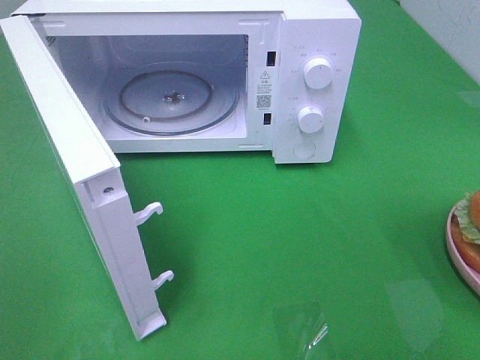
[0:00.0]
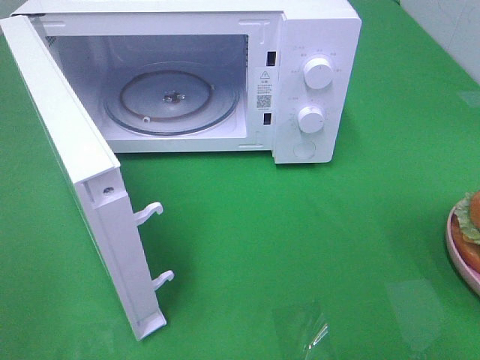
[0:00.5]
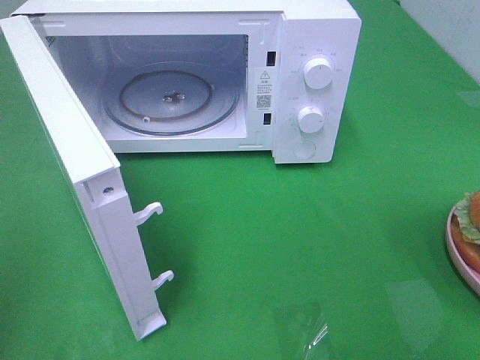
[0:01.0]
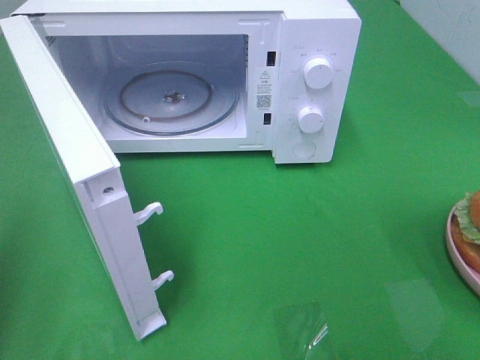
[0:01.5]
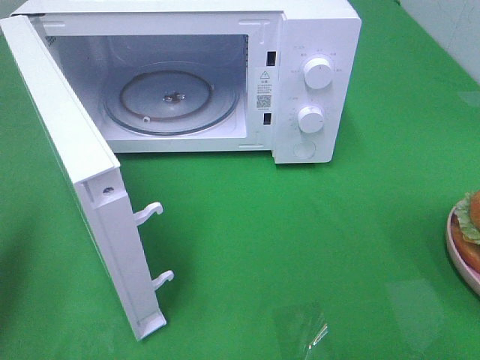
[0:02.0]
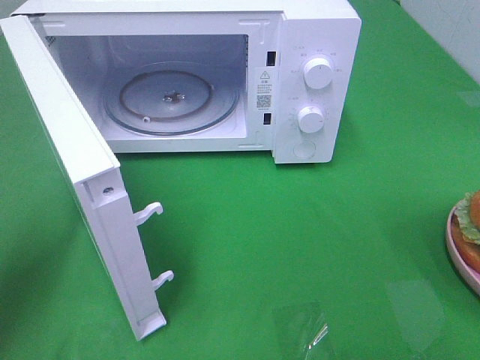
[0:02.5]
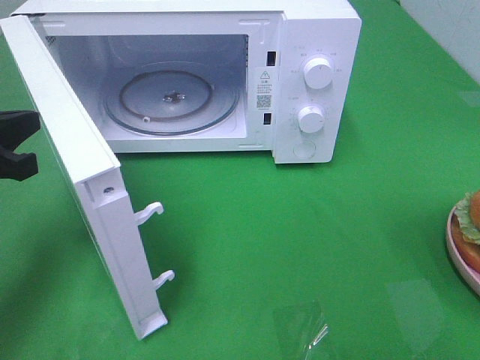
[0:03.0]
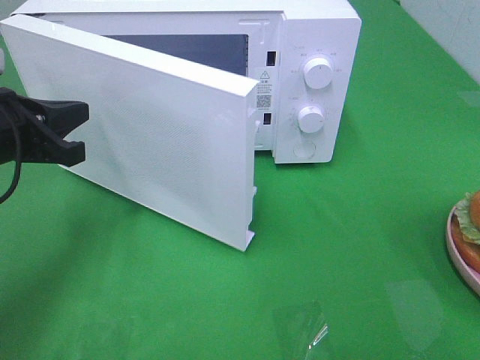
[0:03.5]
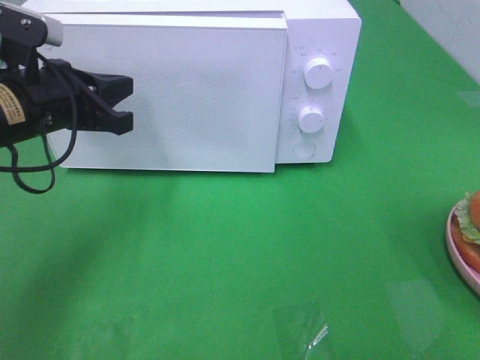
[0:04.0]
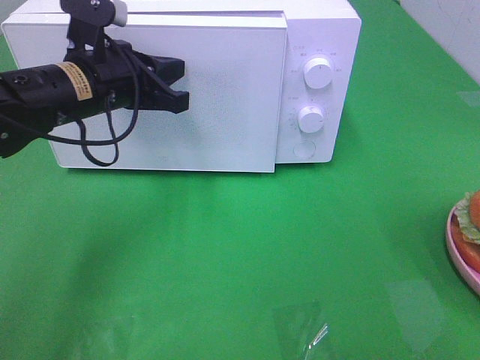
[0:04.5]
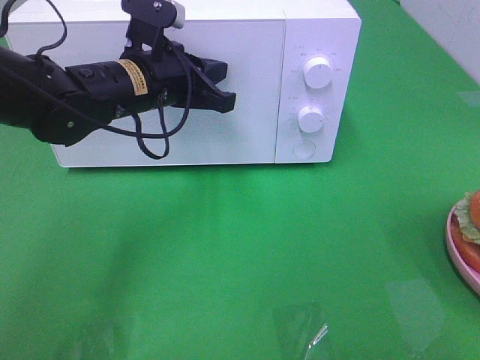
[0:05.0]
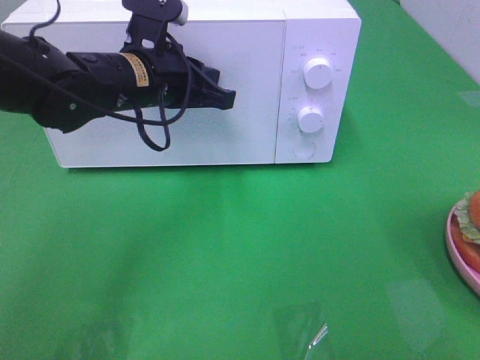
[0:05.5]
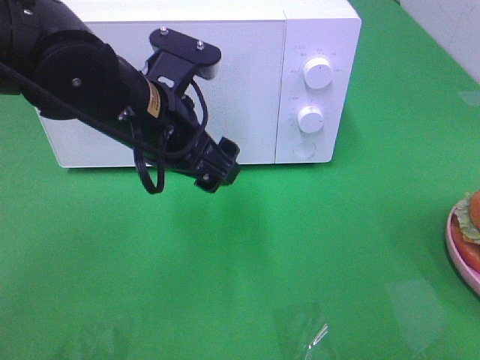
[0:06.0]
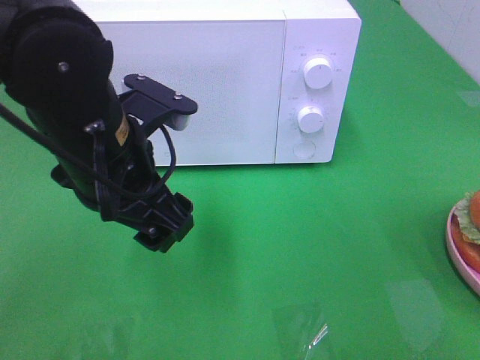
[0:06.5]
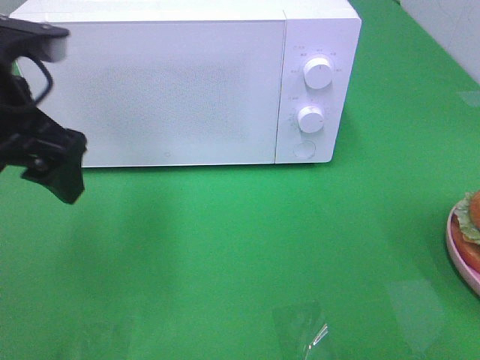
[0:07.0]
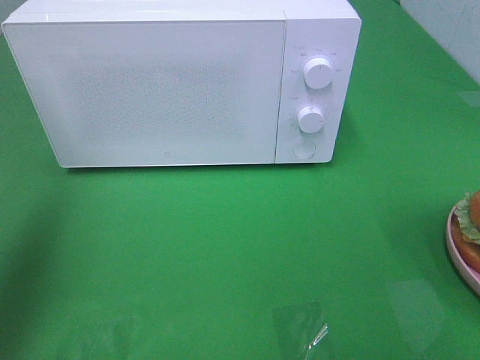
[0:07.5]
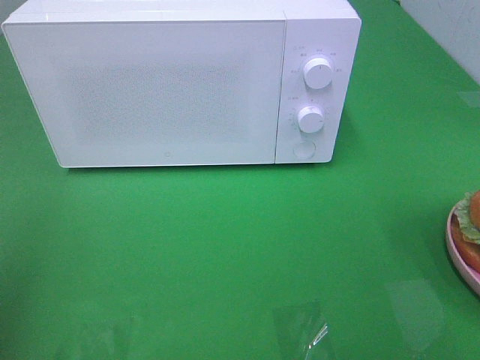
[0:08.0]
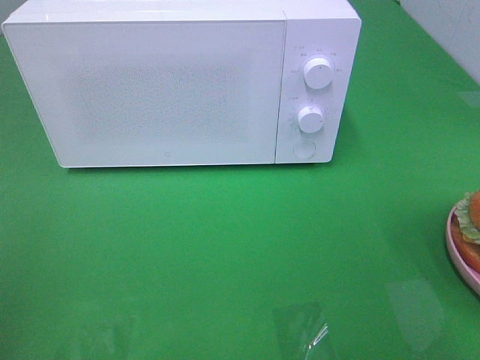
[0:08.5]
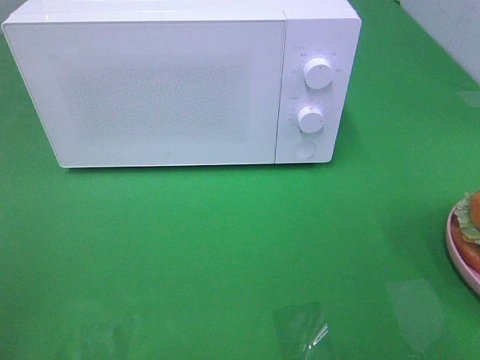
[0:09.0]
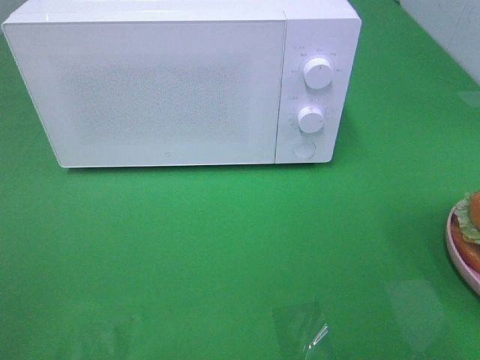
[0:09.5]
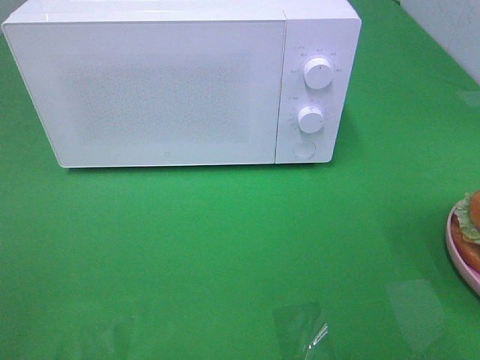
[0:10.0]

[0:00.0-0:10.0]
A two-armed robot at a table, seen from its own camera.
Task of the whole recording: Heat the burger.
Step, 0:00.0 to 0:05.5: Left hand: close the microwave door.
0:00.0 to 0:02.0: The left gripper is displaced forward by roughly 15 cm, and closes its fingers.
0:02.0 to 0:04.0: The left gripper travels forward and to the right by some 20 cm.
0:04.0 to 0:06.0: The left gripper moves to the right, about 10 cm, and opens its fingers.
0:06.0 to 0:08.0: The left gripper is displaced to the left, backward and upward by about 30 cm.

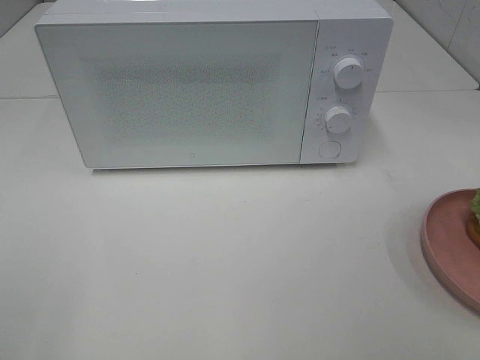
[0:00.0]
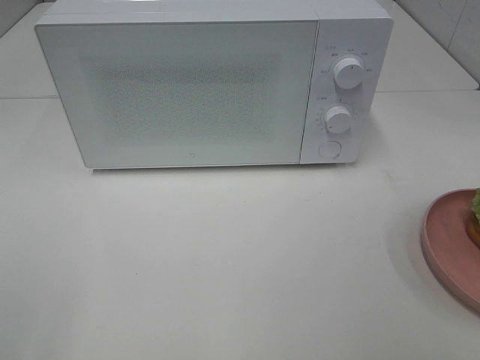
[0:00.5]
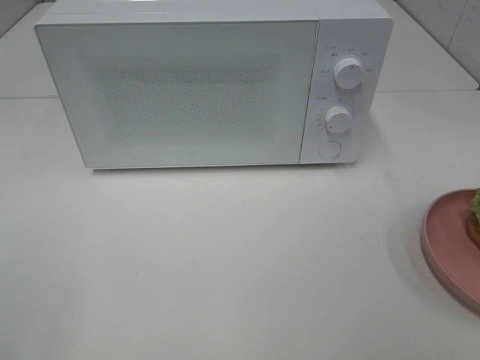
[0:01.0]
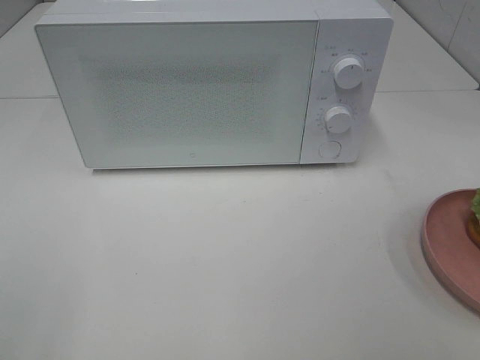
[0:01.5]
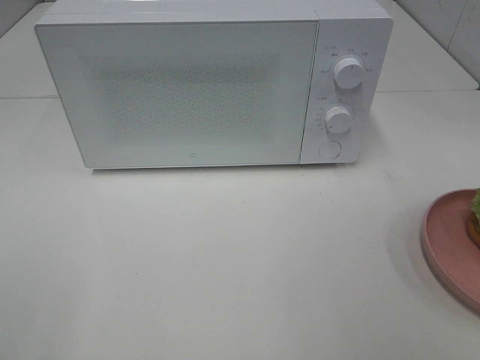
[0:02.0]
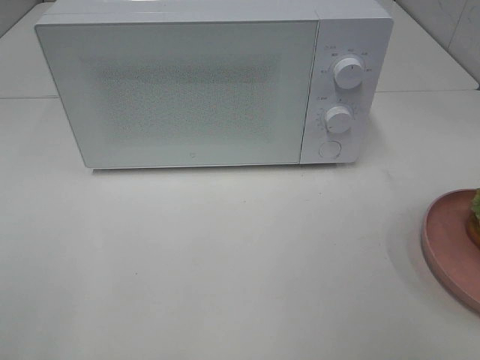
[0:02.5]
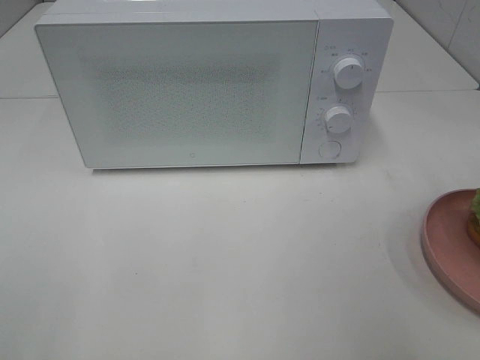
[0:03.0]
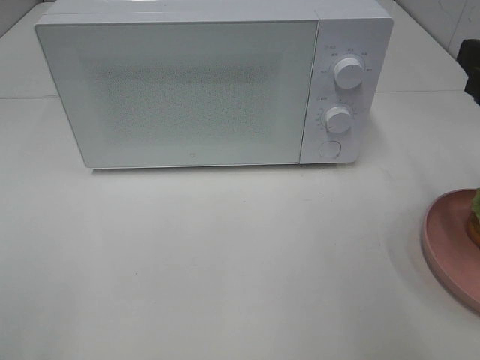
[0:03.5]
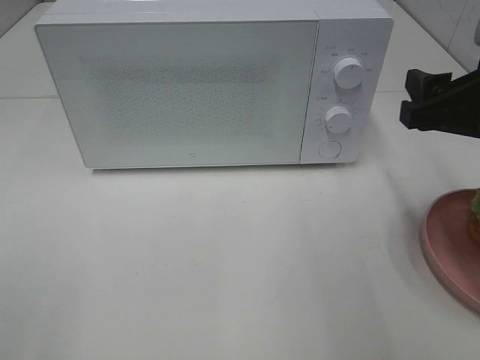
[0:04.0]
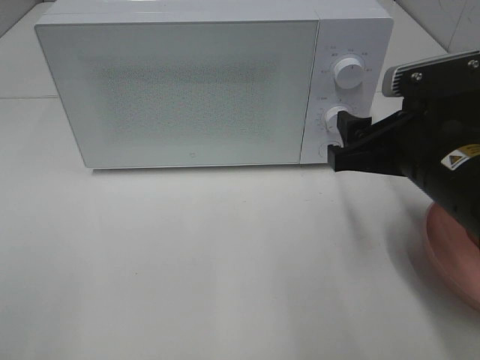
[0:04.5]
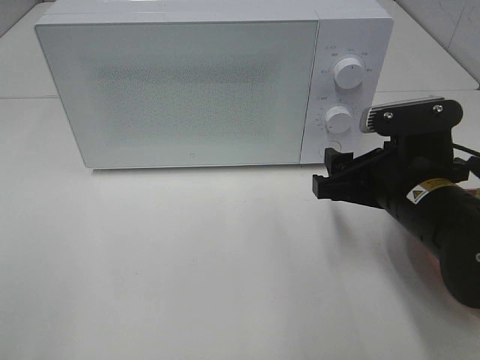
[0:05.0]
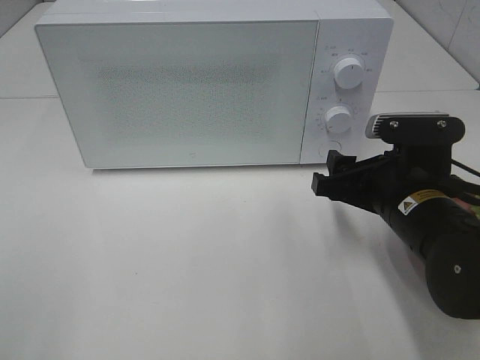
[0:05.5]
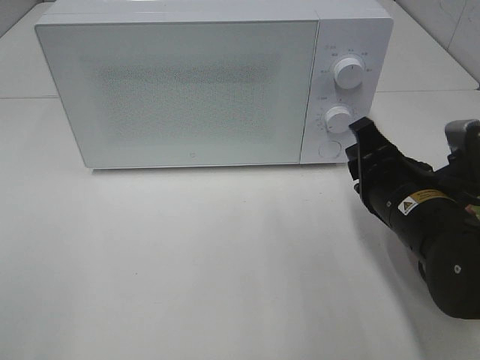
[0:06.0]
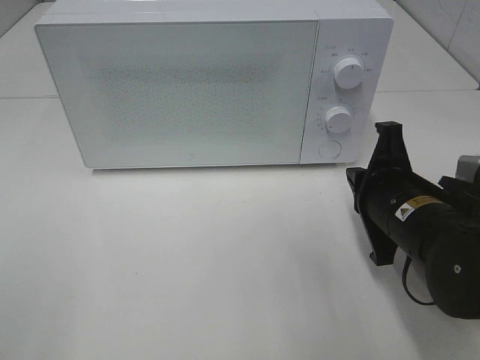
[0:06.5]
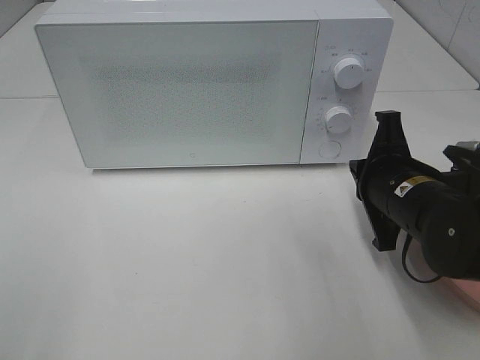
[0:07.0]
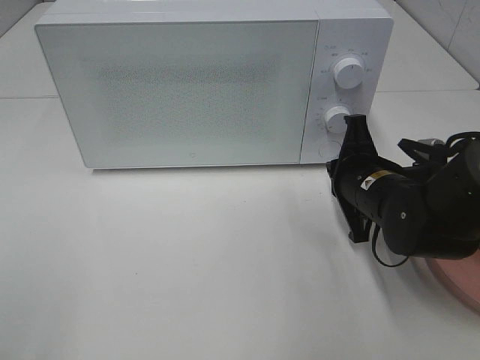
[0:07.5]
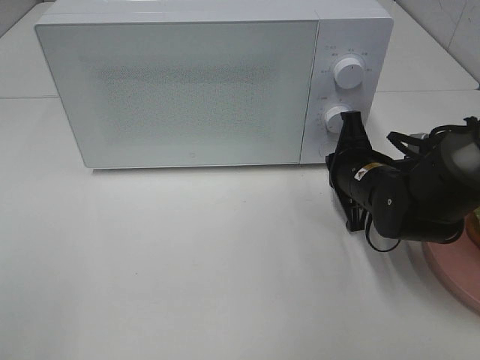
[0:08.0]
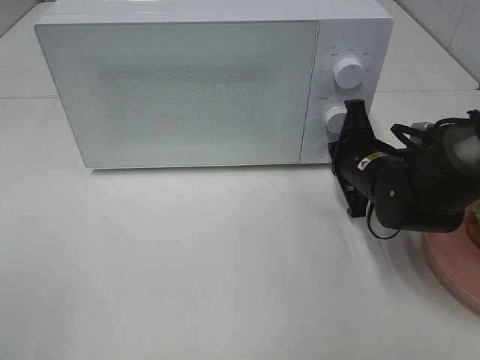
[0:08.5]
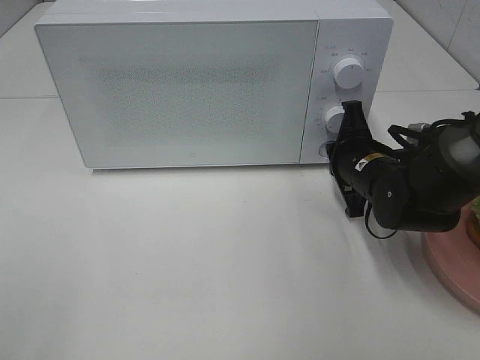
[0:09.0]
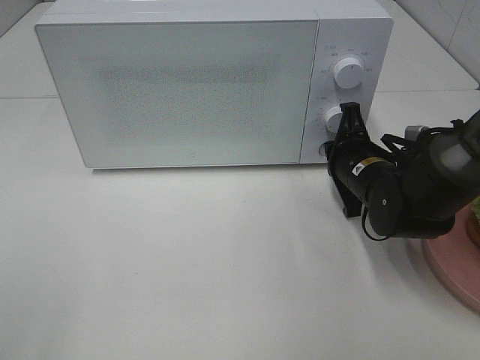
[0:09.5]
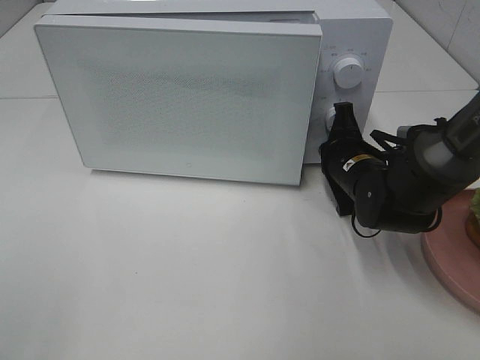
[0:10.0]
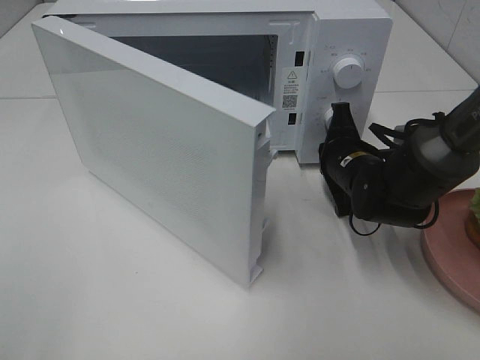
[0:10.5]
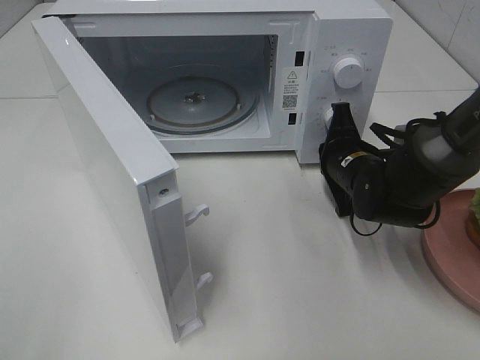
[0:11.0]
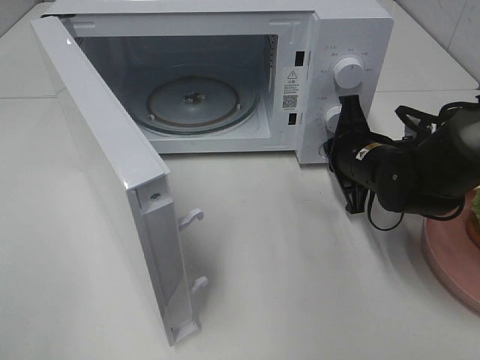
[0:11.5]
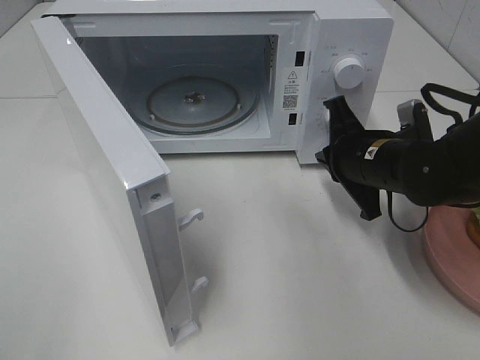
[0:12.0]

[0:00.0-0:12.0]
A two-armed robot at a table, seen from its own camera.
Task of the whole recording: Heat the burger.
Step, 0:00.0 to 0:11.5: Right hand: press the switch.
0:02.0 to 0:04.0: The right gripper heads forward, covering roughly 20 cm.
0:04.0 to 0:06.0: The right gripper moves downward and to the left, about 10 cm, and closes.
0:06.0 to 0:08.0: The right gripper goes about 10 cm forward.
0:08.0 to 0:10.0: The grippers make only small movements.
0:10.0 to 0:12.0: The right gripper ends up approximately 5 cm from where it was.

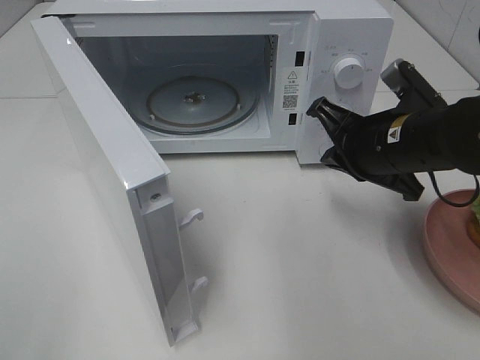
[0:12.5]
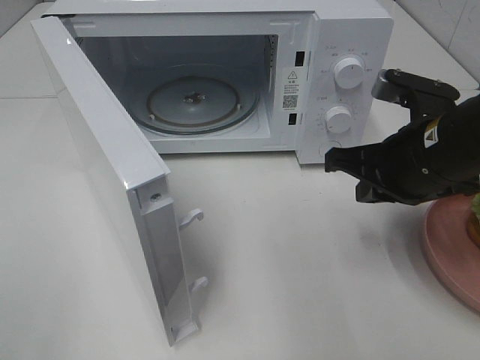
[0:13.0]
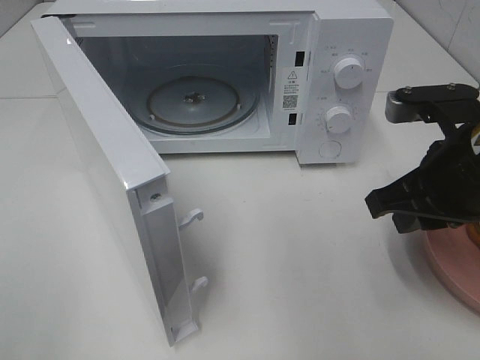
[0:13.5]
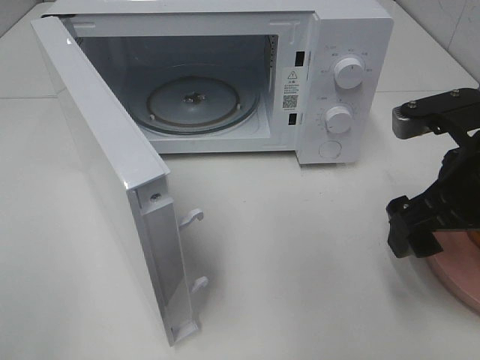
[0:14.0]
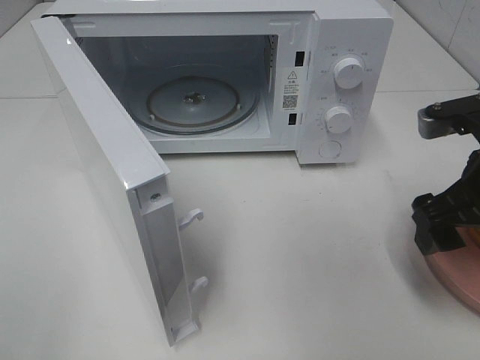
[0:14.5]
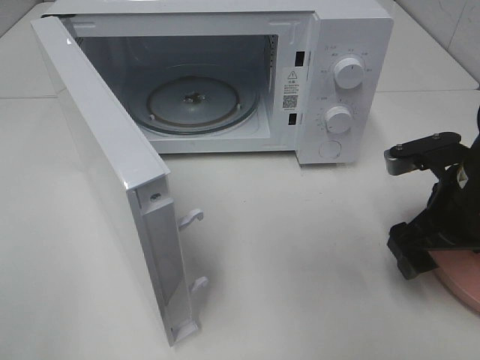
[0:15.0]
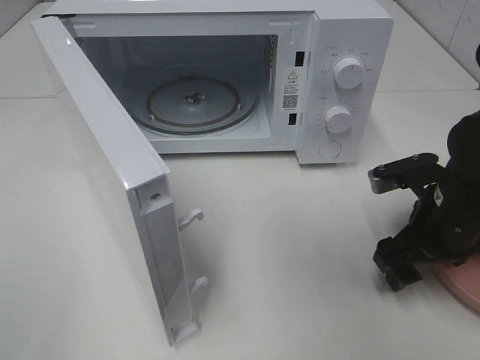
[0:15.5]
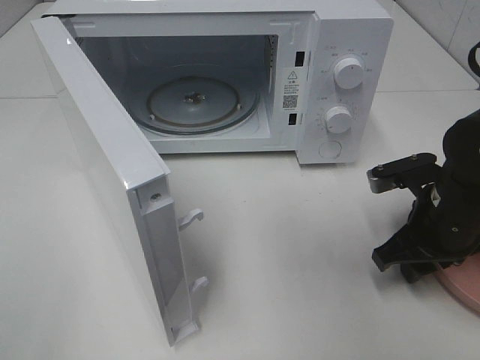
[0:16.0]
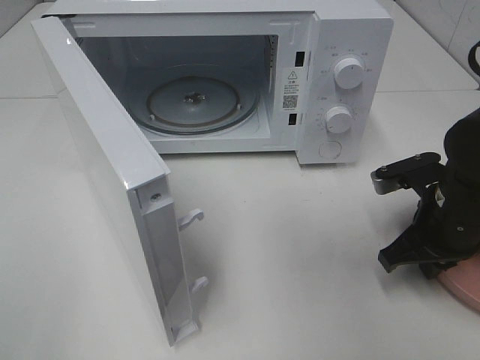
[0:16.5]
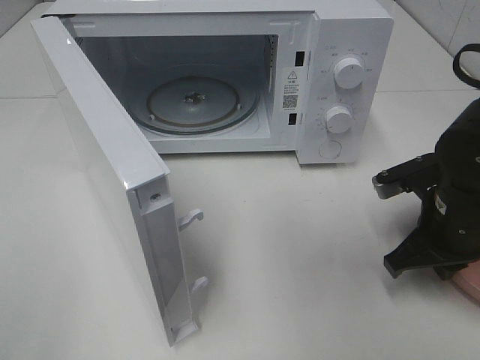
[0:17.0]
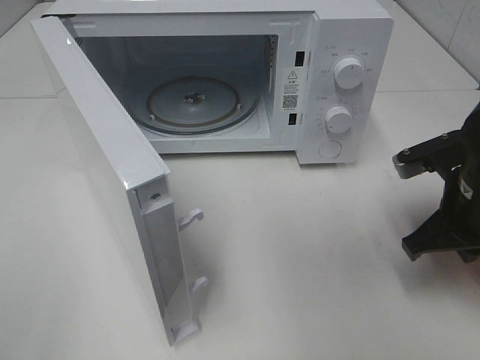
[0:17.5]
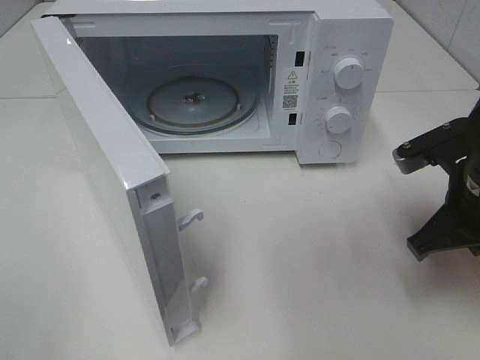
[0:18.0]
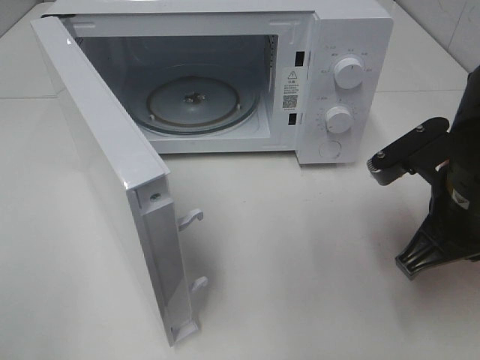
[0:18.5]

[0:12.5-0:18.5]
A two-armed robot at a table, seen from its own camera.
Task of the whole recording: Heat the burger.
Step, 0:12.5 to 0:16.5: Right hand: grab the plate with the hamburger.
0:12.5 to 0:14.5: The right gripper heads to the right and backward, covering some 10 cm, and opens its fingers.
0:14.5 to 0:16.5: The right gripper is displaced downward by about 10 cm, and closes up.
0:16.5 to 0:18.5: The right gripper moves upward, approximately 5 cm.
